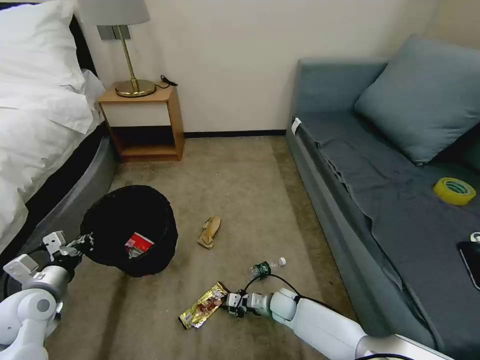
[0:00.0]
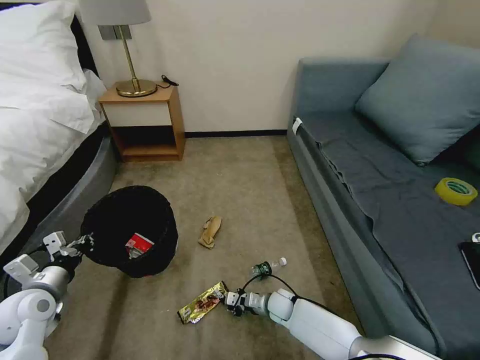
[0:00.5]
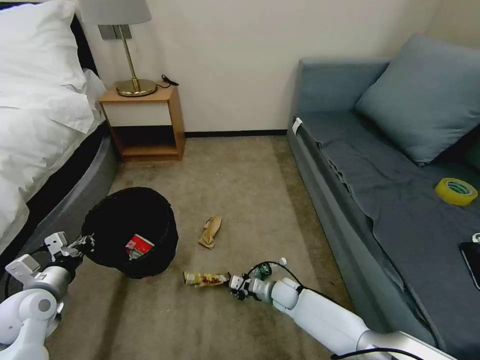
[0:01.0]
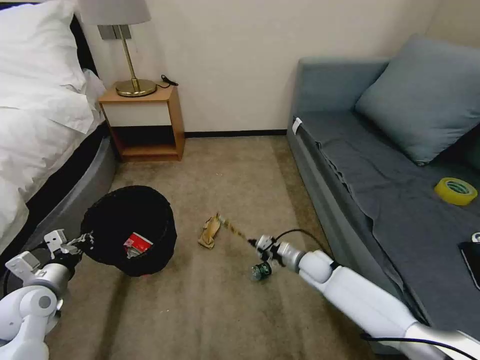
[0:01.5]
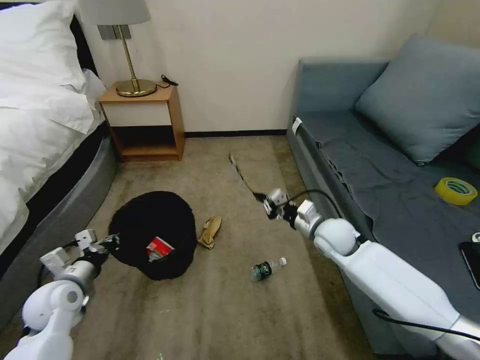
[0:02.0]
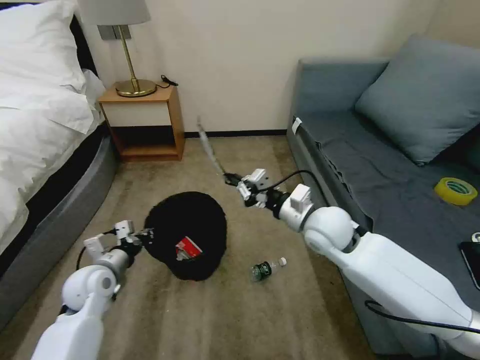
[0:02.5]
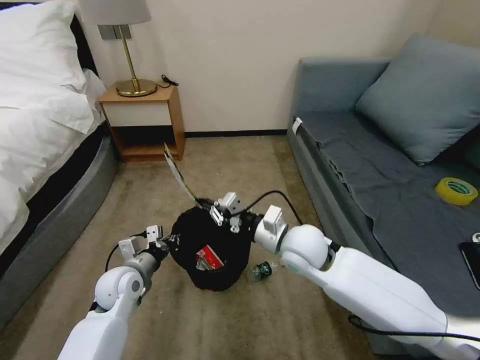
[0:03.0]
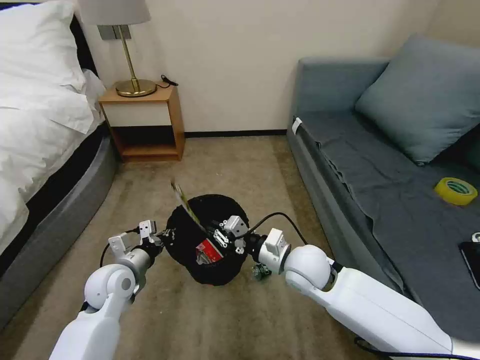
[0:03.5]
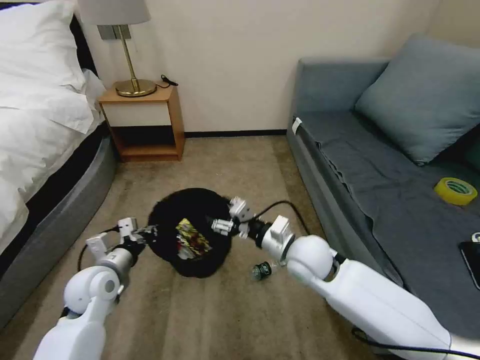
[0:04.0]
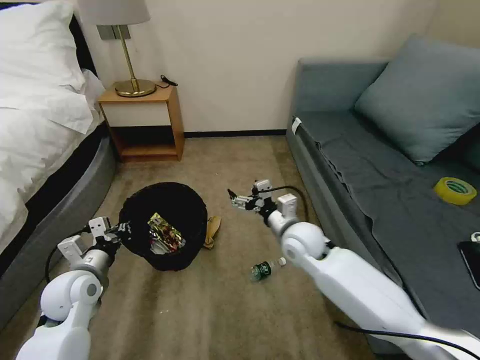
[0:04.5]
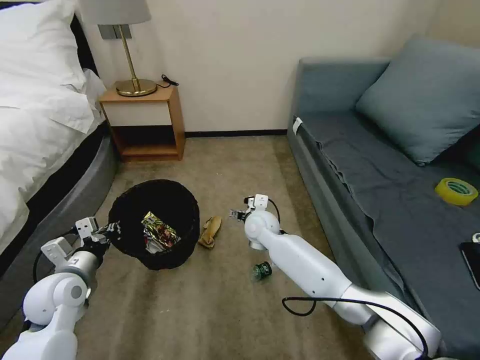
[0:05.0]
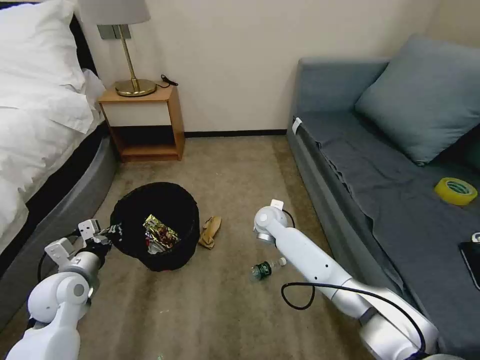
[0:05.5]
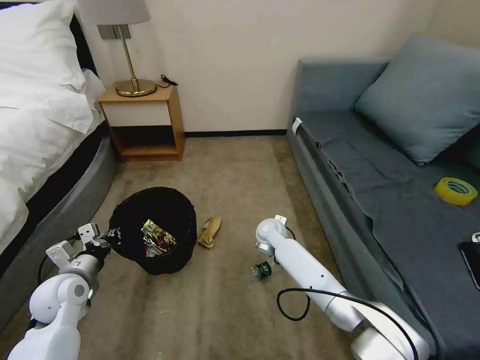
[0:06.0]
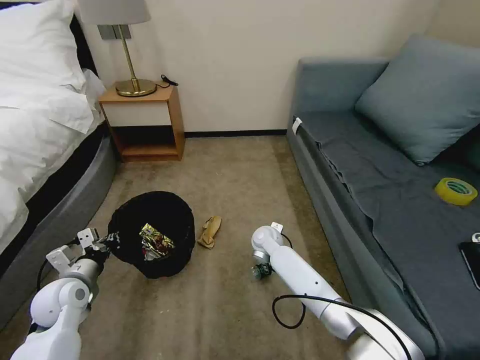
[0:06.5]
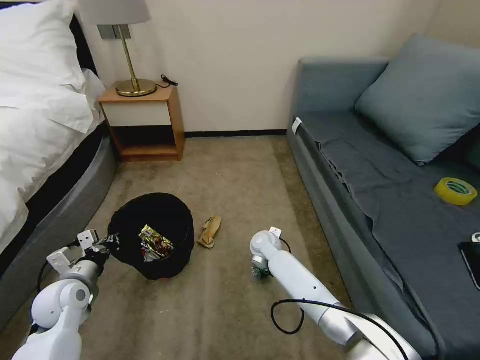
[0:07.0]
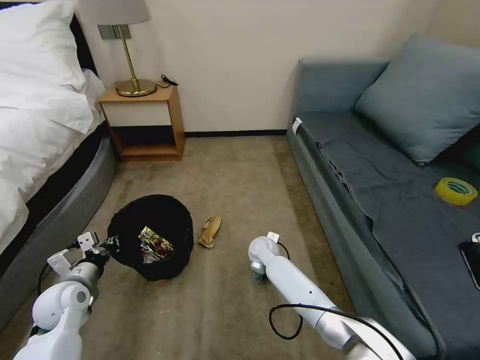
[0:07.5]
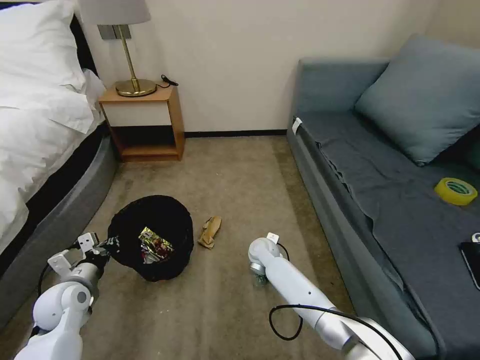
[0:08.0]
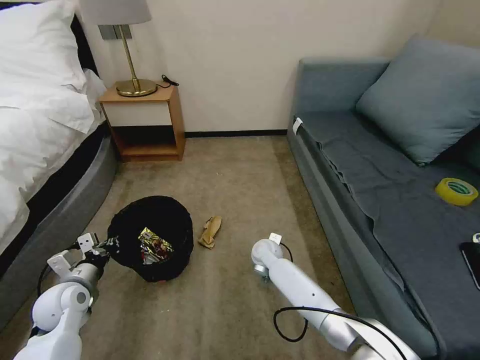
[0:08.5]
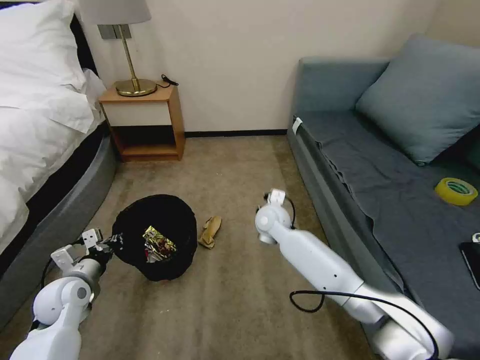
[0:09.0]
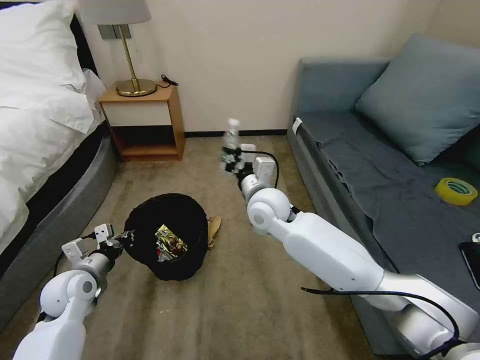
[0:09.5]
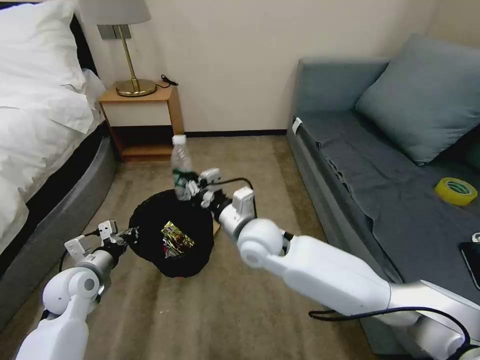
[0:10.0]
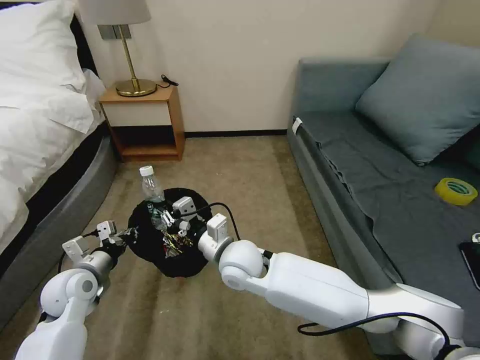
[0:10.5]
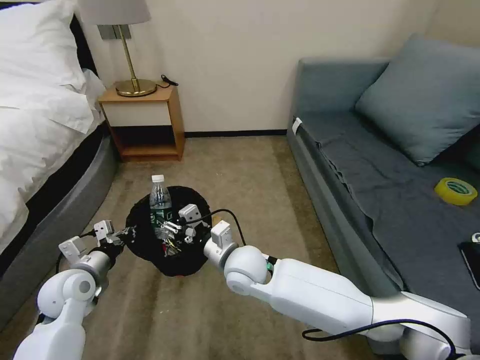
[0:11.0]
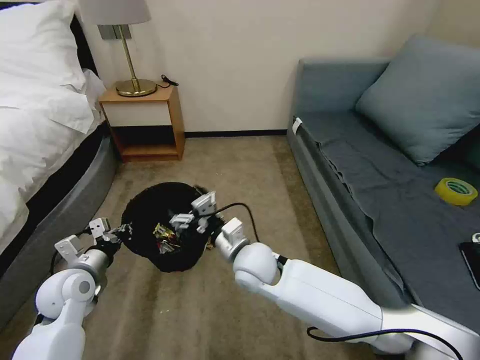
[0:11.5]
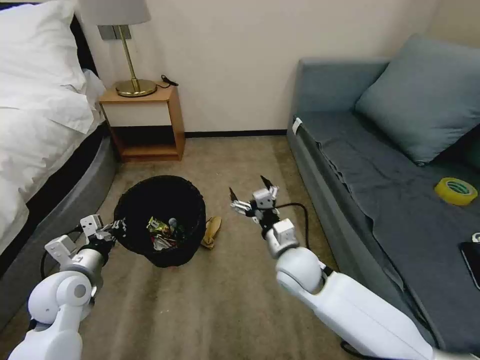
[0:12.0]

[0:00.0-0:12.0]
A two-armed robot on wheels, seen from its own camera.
Task of the whole recording: Pick up the trash bin, then pick up the garbage on the floor and place it into the trash bin.
0:00.0 to 0:02.0: The right gripper heads upward, covering roughly 25 cm.
0:02.0 to 0:04.0: The right gripper is displaced to the left, backward and upward by approximately 15 cm, and opens up, while the left gripper moves to the right, about 10 cm.
0:04.0 to 0:06.0: The right gripper shifts roughly 20 cm forward and downward, and opens up; the left gripper travels to the left by roughly 5 cm.
0:06.0 to 0:08.0: The right gripper heads downward, covering approximately 5 cm, and closes.
0:08.0 to 0:10.0: The right gripper heads upward and backward, covering approximately 25 cm, and closes its fingers.
0:10.0 to 0:12.0: The right gripper shifts approximately 10 cm to the right and downward, and opens up.

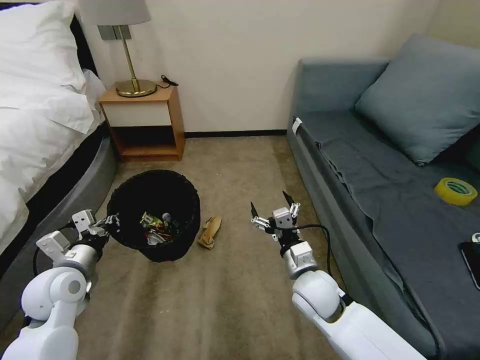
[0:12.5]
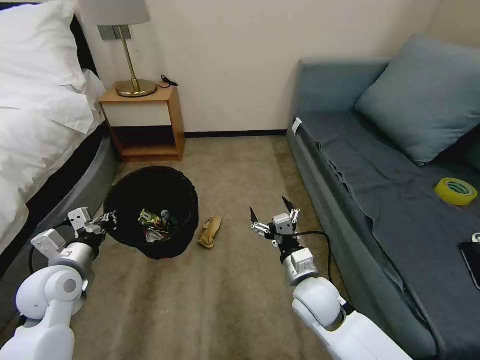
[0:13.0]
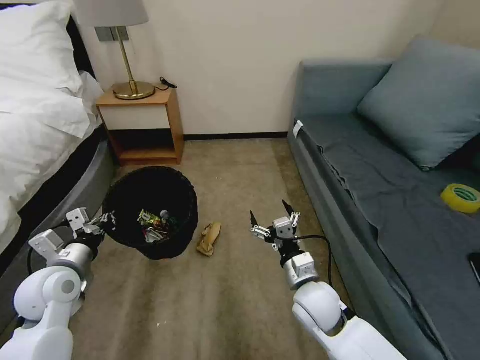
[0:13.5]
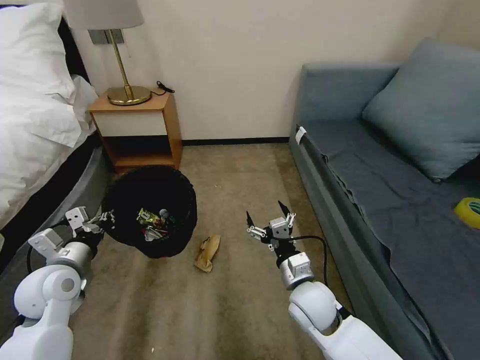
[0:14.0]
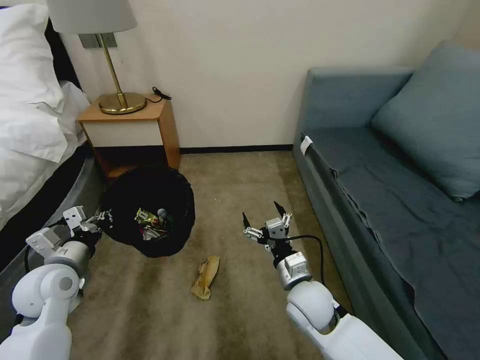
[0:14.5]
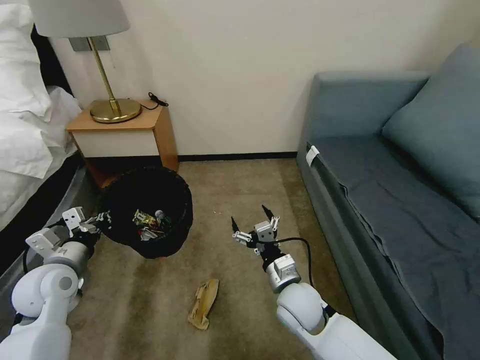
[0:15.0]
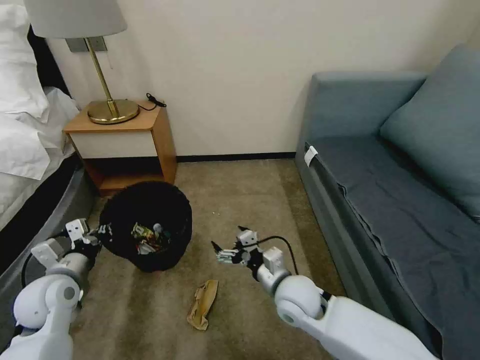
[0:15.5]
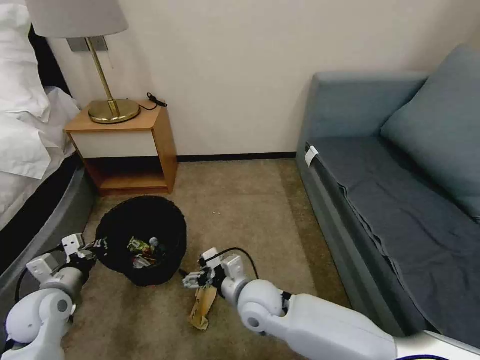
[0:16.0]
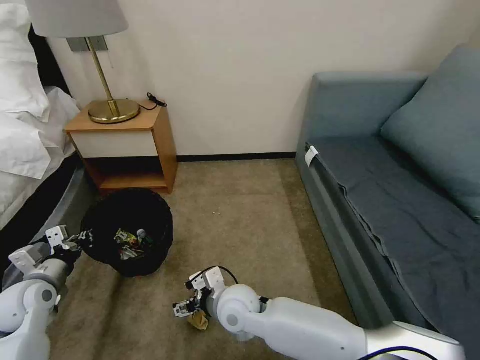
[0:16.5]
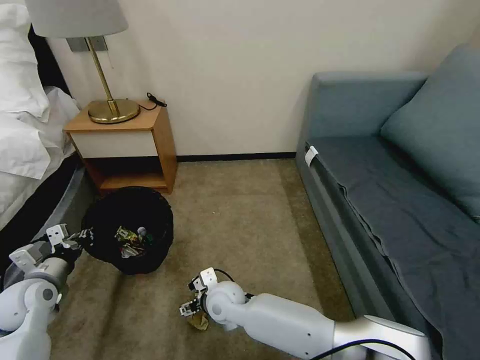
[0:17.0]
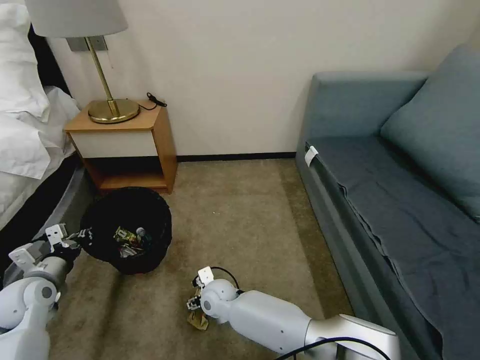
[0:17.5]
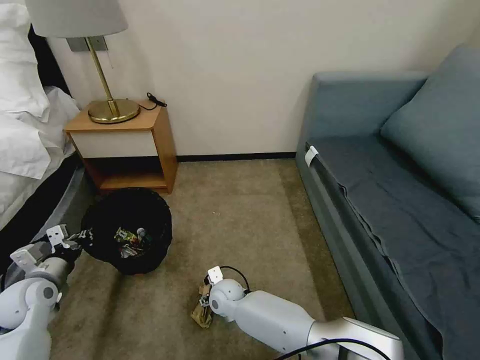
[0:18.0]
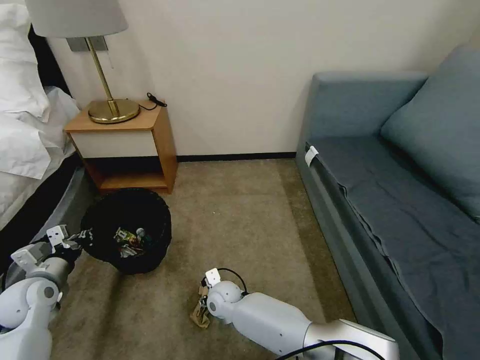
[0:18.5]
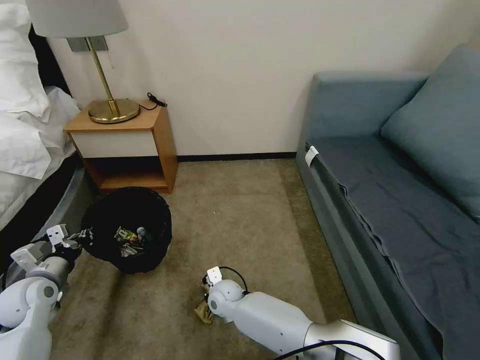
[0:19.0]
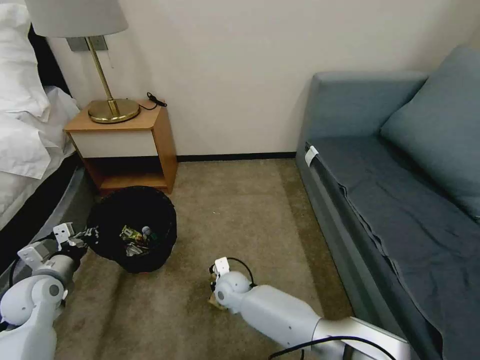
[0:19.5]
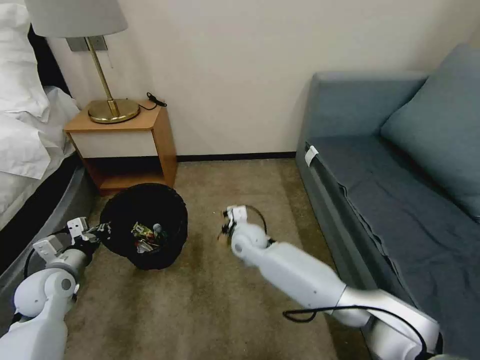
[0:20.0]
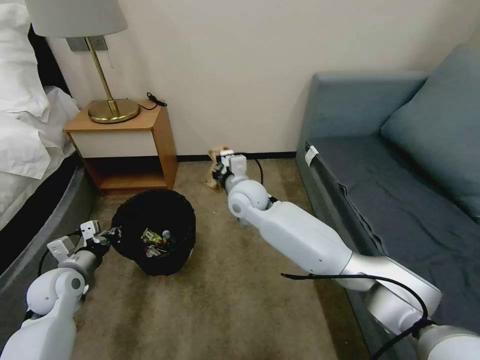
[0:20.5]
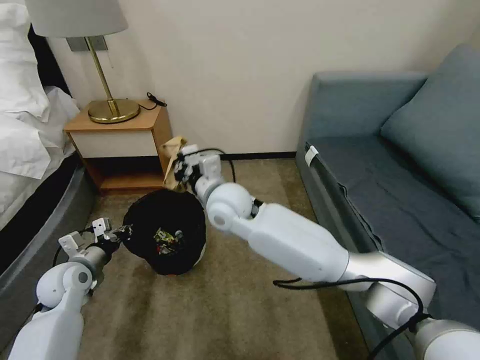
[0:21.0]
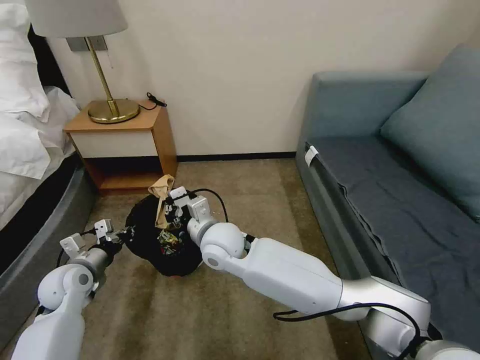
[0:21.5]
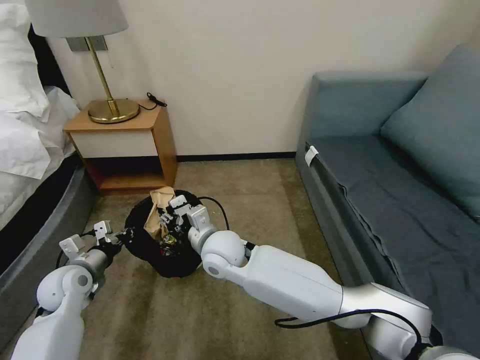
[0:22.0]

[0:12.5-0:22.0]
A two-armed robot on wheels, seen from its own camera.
Task of the whole recording: Pick up the trash bin, then pick up the garbage on the floor and place it into the trash bin.
0:14.5 to 0:16.5: The left gripper shifts approximately 5 cm to the left; the right gripper moves to the left, approximately 15 cm.
0:16.5 to 0:18.0: The right gripper heads downward and forward, covering approximately 15 cm.
0:18.0 to 0:20.0: The right gripper travels upward, forward and to the right by some 15 cm, and closes its fingers.
0:20.0 to 0:22.0: The right gripper heads upward, backward and to the left, covering roughly 15 cm, and opens its fingers.

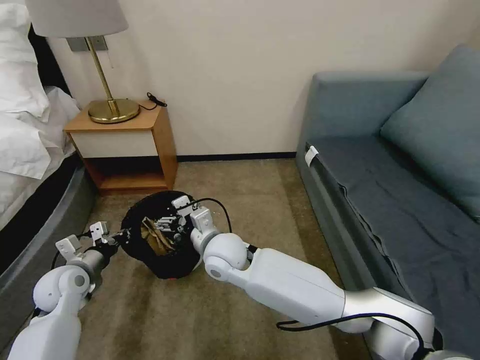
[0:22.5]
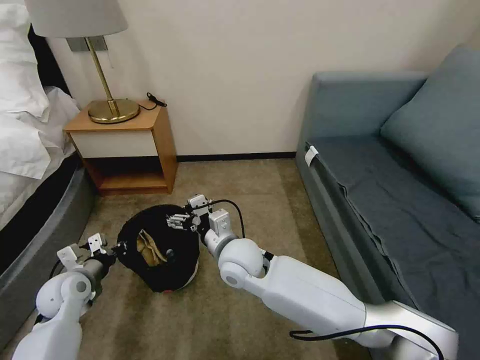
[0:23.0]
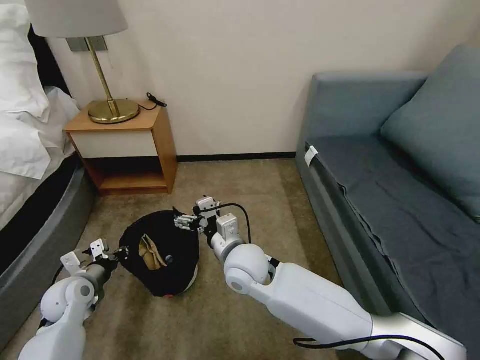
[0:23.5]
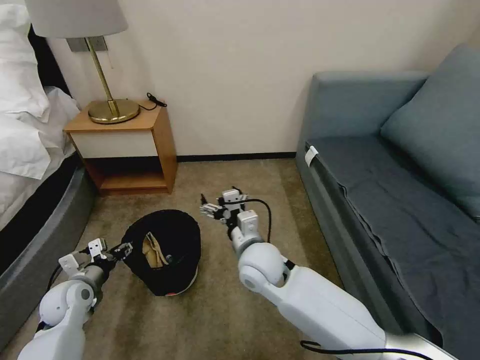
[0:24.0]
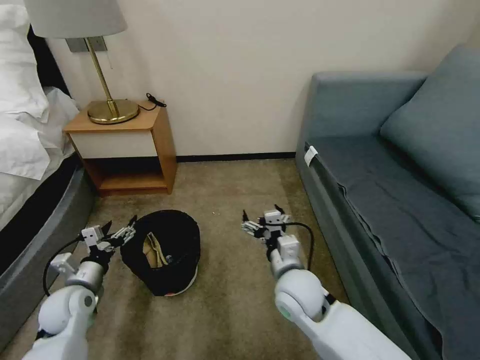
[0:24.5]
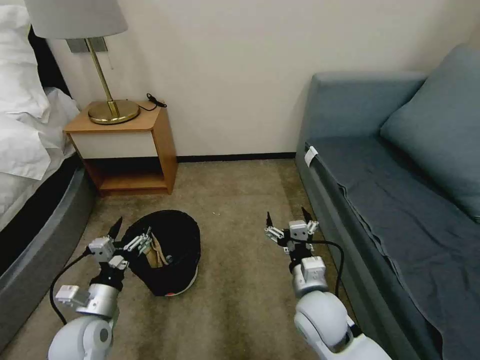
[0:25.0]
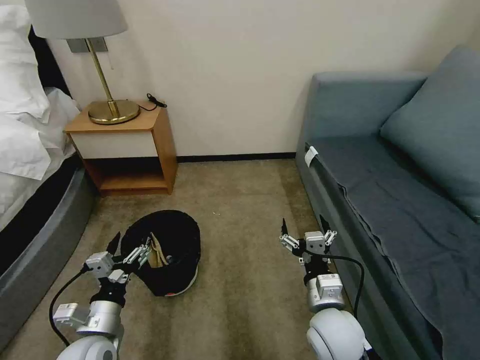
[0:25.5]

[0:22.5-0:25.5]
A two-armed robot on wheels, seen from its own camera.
Task of the whole recording: Pick up the trash bin, then pick up the garbage on the floor and place it into the trash bin.
0:22.5 to 0:24.0: The right gripper moves to the right, some 10 cm, while the left gripper opens.
0:24.0 to 0:25.5: The right gripper goes roughly 20 cm to the right and backward. The left gripper is displaced backward and to the right by approximately 15 cm, and opens its fingers.
